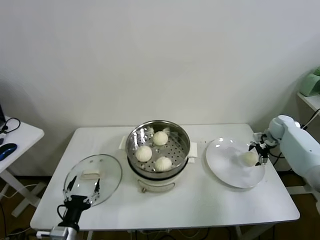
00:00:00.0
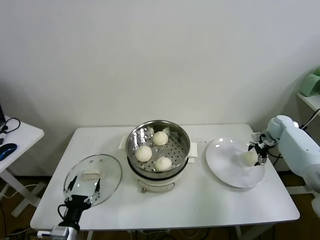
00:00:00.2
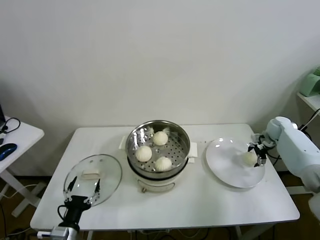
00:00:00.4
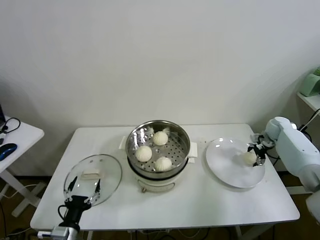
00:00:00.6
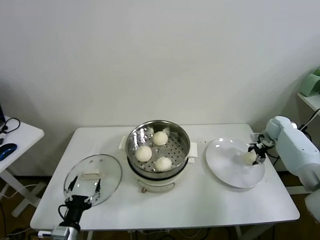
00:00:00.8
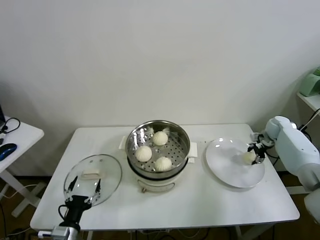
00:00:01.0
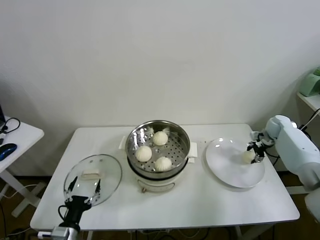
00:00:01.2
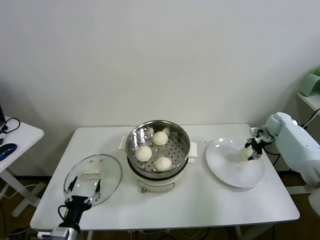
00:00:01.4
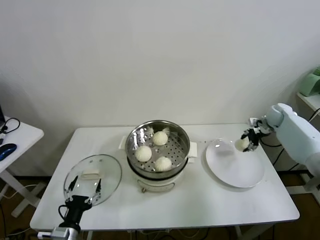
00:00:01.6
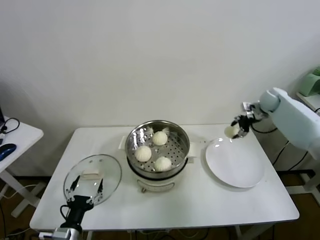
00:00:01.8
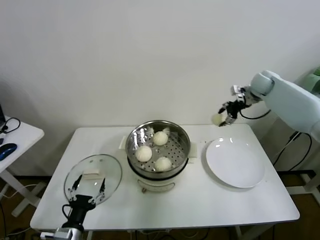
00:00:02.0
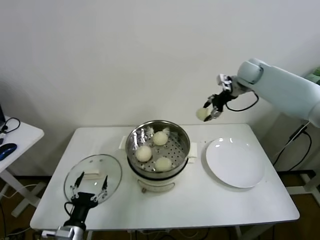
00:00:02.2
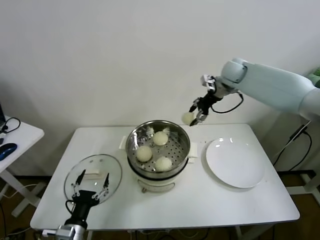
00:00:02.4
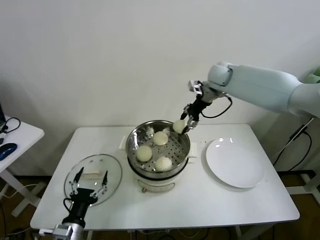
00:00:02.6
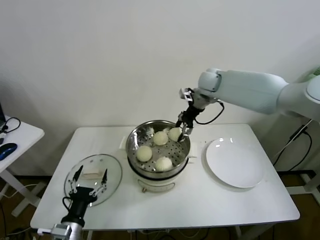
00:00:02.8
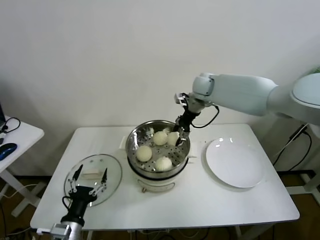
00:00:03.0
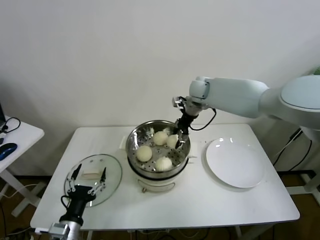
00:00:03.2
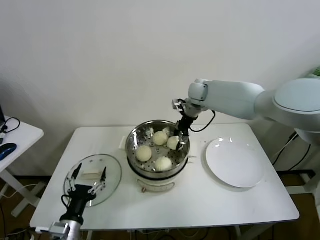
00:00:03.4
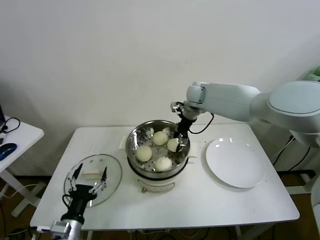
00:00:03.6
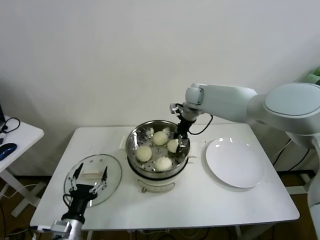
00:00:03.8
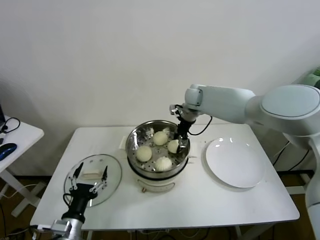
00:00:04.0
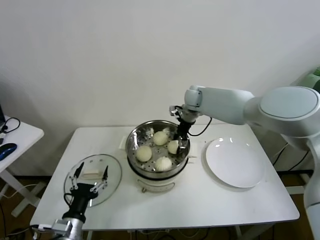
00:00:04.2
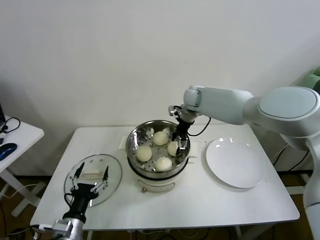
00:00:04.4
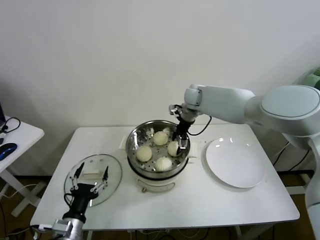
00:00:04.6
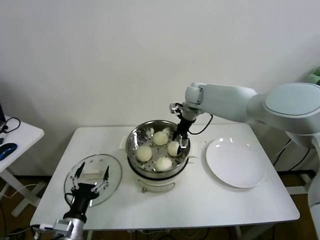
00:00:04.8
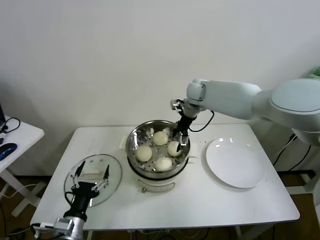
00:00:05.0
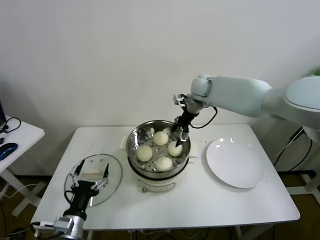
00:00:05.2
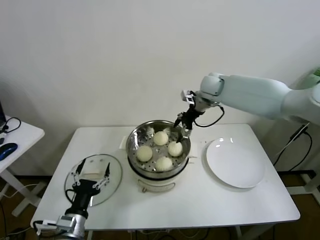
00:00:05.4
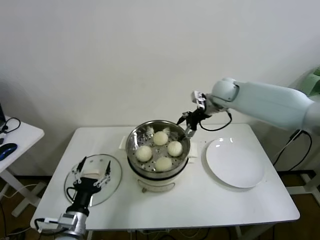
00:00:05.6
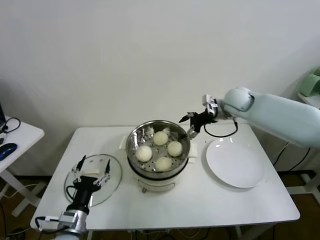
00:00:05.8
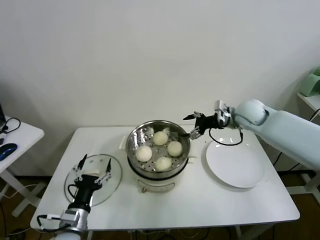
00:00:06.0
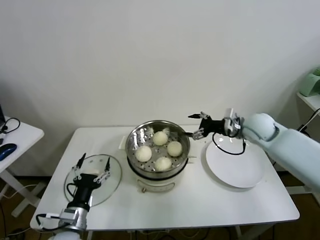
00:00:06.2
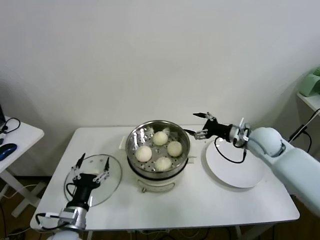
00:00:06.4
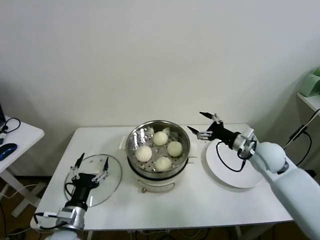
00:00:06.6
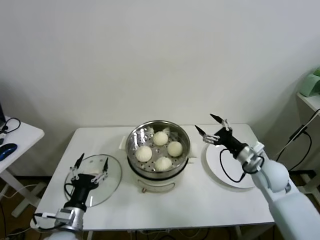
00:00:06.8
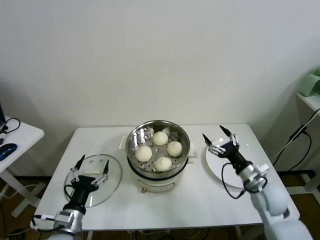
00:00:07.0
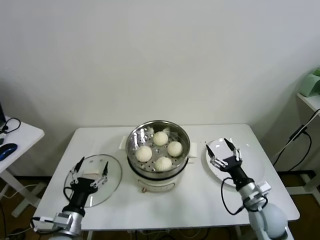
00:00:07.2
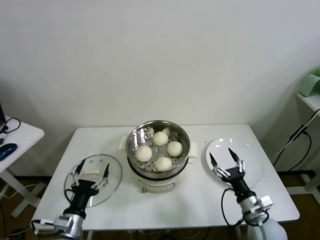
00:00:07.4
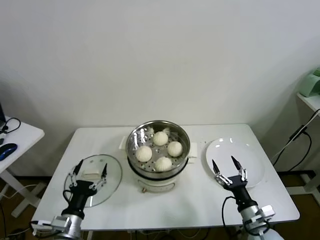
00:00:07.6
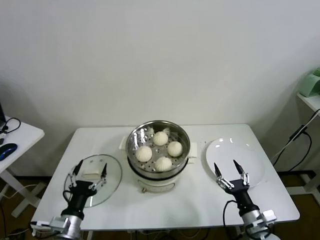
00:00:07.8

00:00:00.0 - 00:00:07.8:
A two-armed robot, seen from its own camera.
Task of the whole recording: take steamed baozi put them in steamer.
Step, 00:00:01.2 - 00:00:04.6: Place the baozi on the steamer with right gripper.
00:00:00.0 - 00:00:01.6: The right gripper closes.
00:00:01.6 - 00:00:03.2: The right gripper moves to the left, roughly 35 cm.
00:00:03.2 - 00:00:04.6: The right gripper opens its fingers.
00:00:04.6 - 00:00:06.2: The right gripper is displaced to the right and backward by approximately 25 cm.
00:00:06.2 - 00:00:07.8: The right gripper travels backward and downward by approximately 35 cm.
